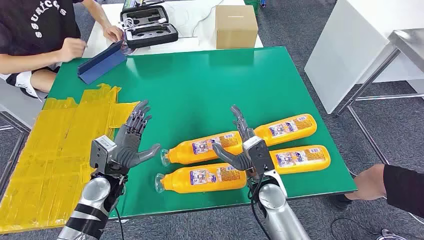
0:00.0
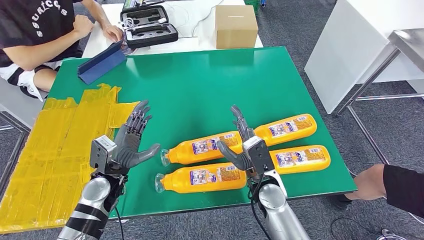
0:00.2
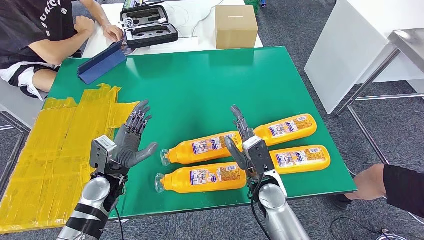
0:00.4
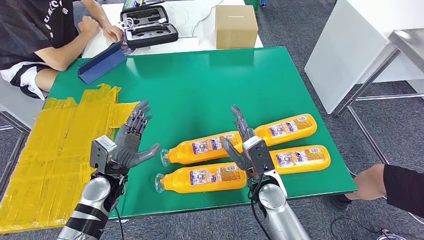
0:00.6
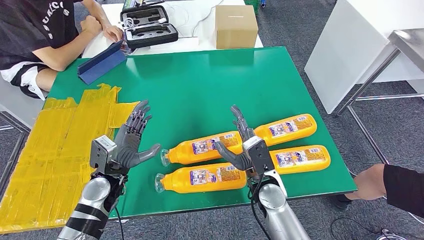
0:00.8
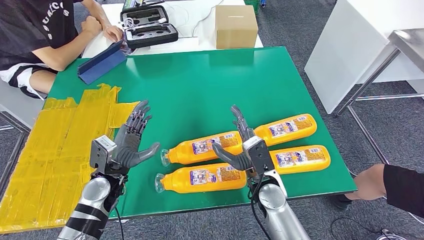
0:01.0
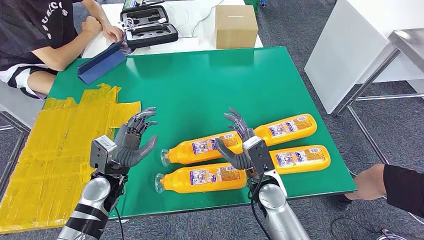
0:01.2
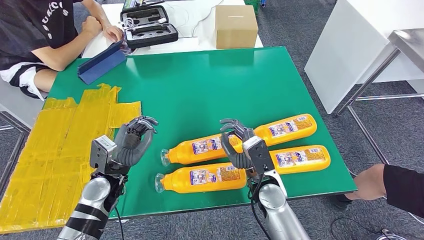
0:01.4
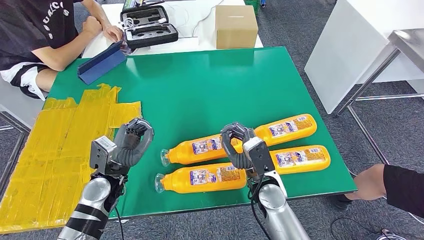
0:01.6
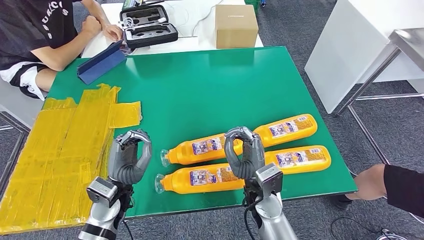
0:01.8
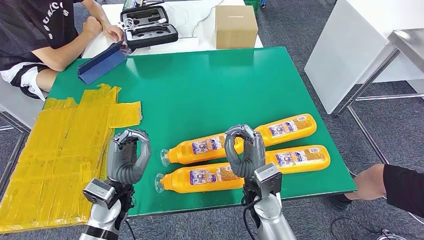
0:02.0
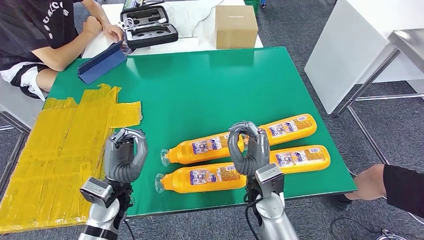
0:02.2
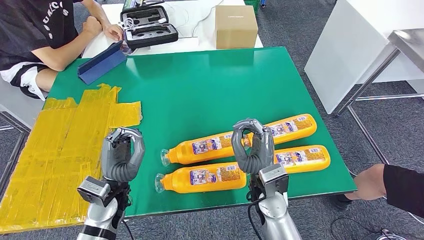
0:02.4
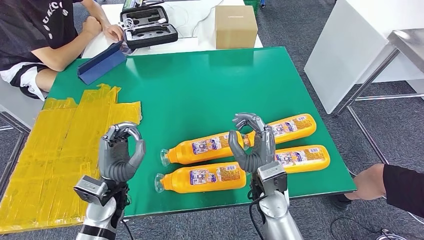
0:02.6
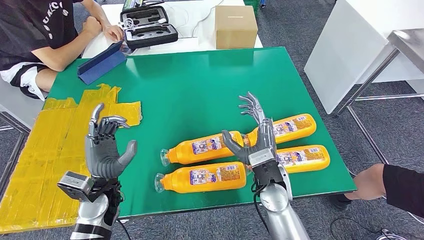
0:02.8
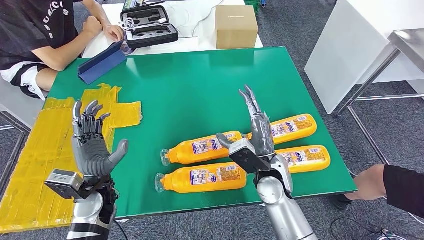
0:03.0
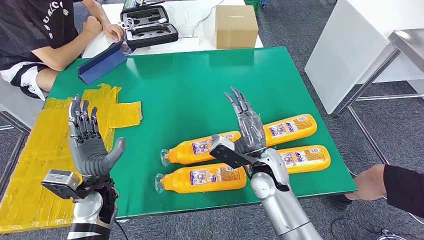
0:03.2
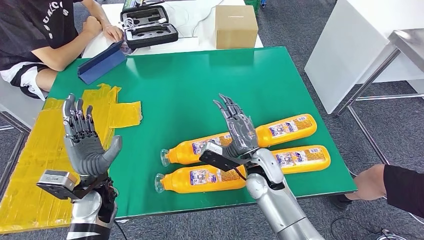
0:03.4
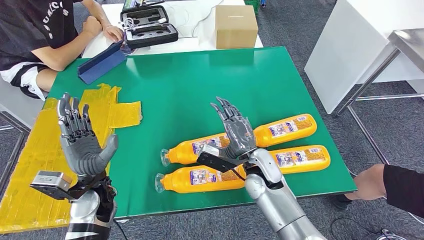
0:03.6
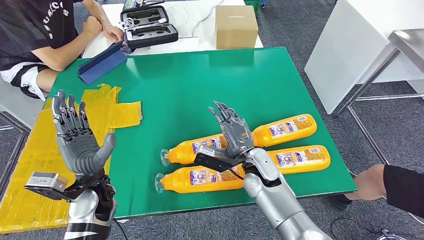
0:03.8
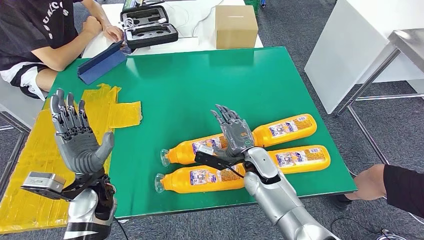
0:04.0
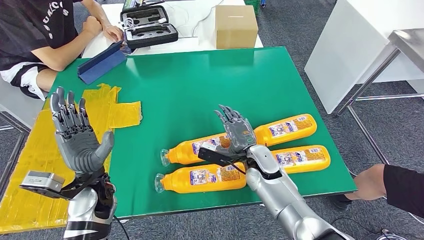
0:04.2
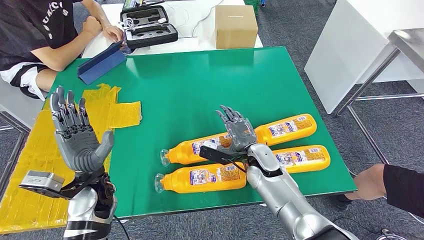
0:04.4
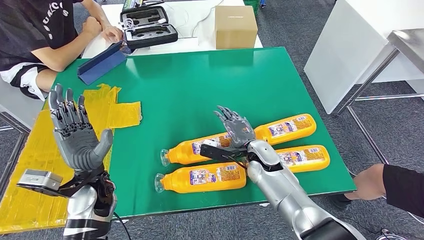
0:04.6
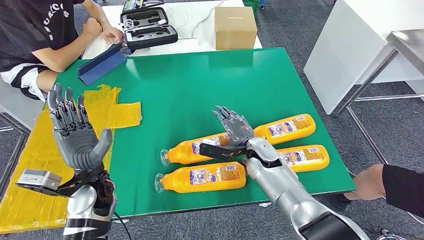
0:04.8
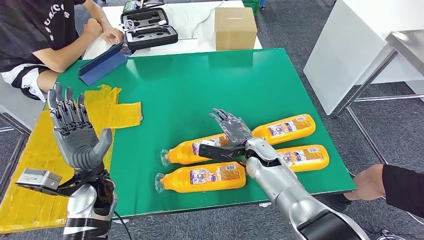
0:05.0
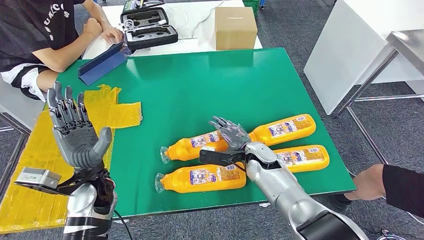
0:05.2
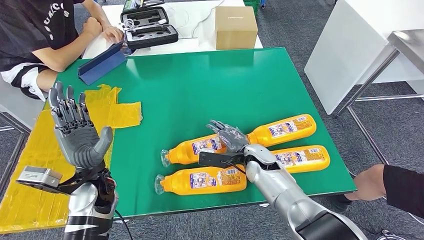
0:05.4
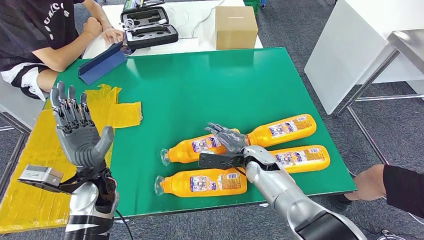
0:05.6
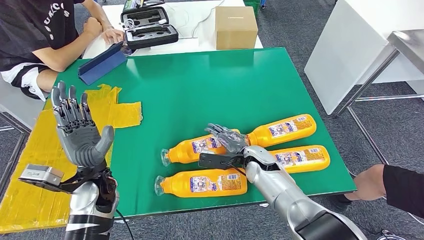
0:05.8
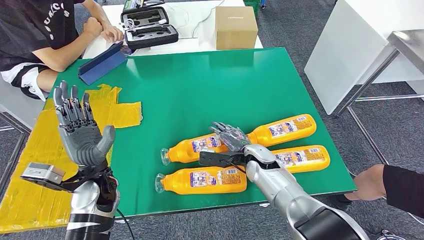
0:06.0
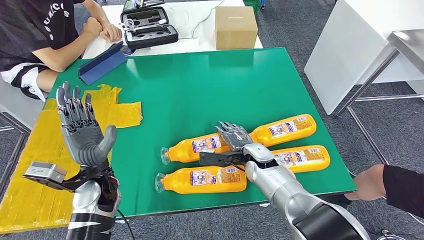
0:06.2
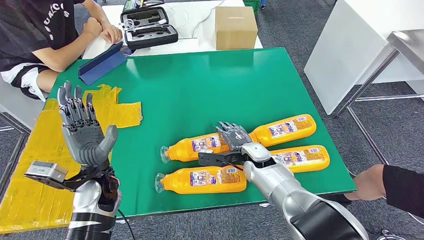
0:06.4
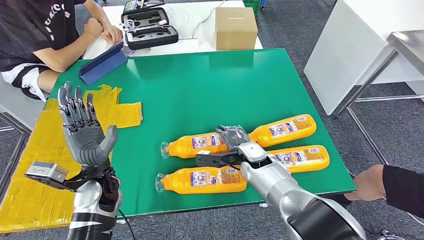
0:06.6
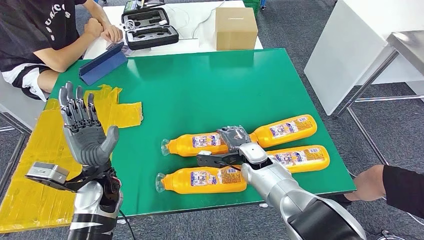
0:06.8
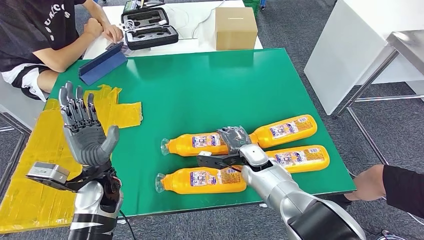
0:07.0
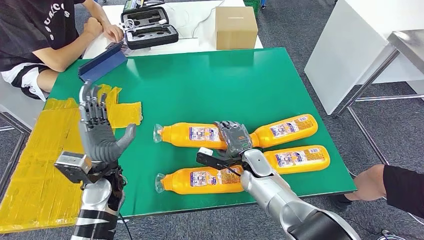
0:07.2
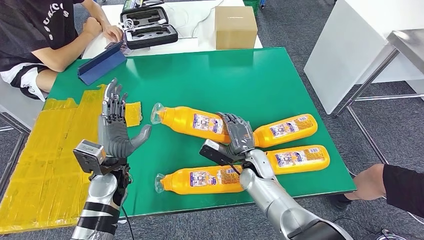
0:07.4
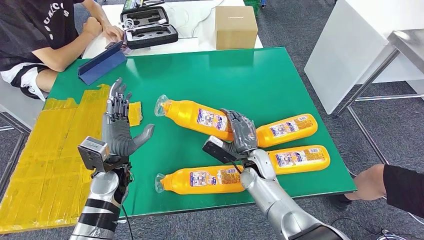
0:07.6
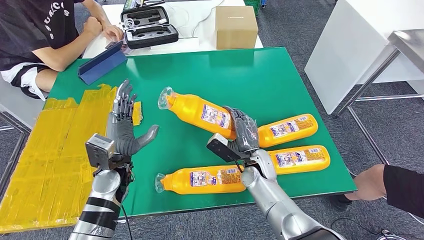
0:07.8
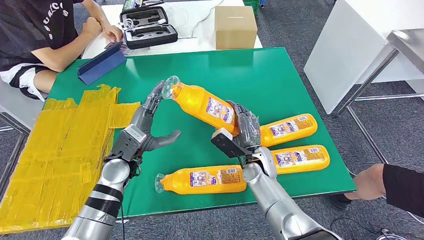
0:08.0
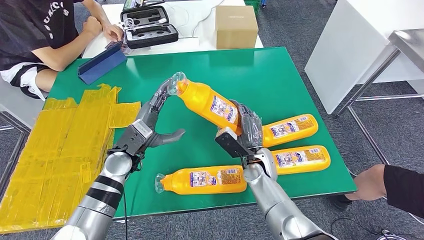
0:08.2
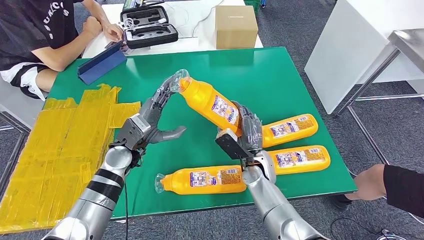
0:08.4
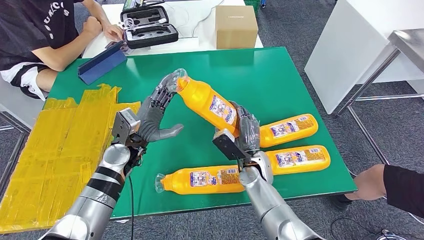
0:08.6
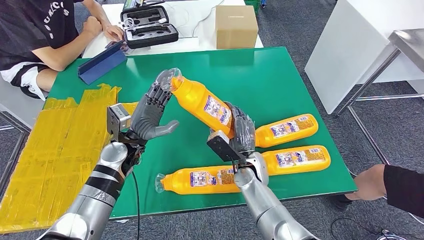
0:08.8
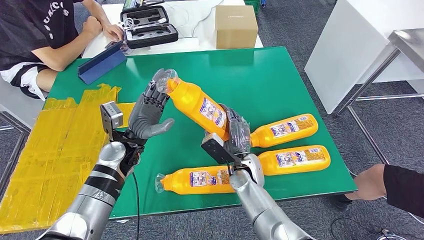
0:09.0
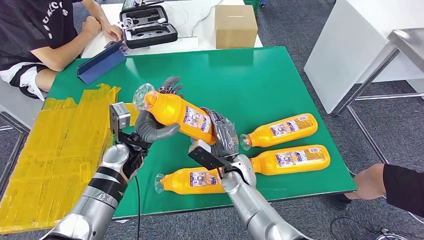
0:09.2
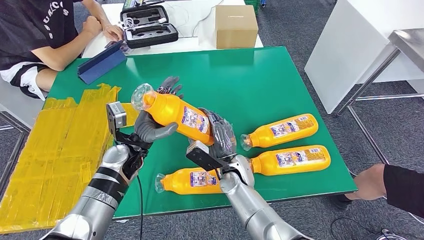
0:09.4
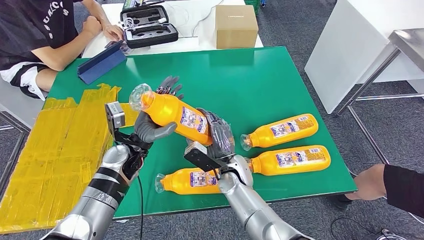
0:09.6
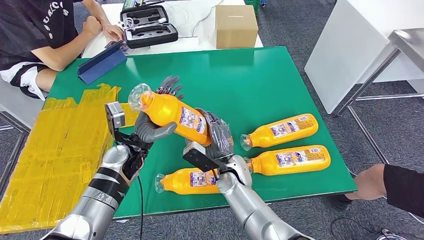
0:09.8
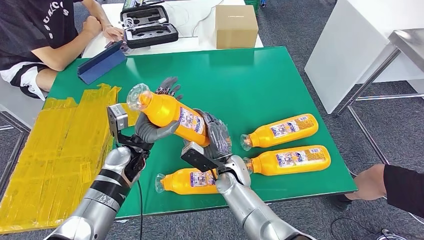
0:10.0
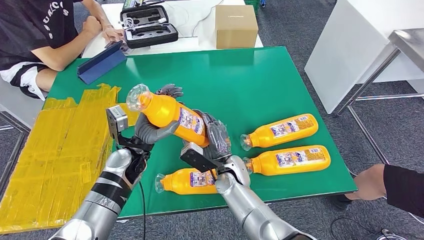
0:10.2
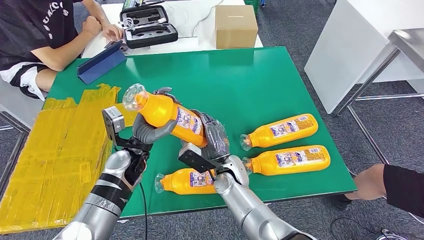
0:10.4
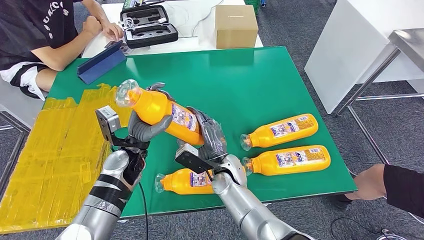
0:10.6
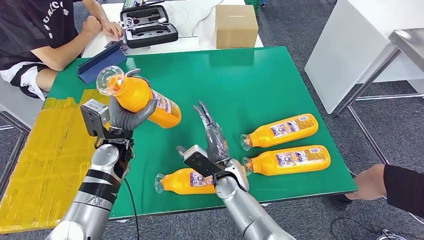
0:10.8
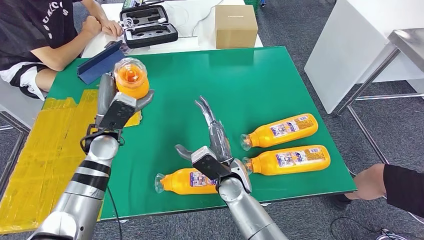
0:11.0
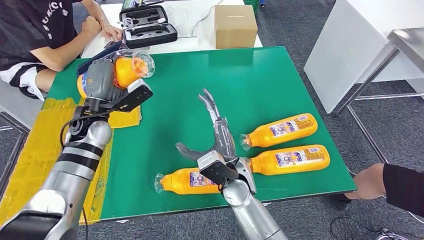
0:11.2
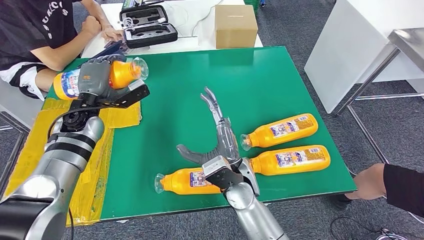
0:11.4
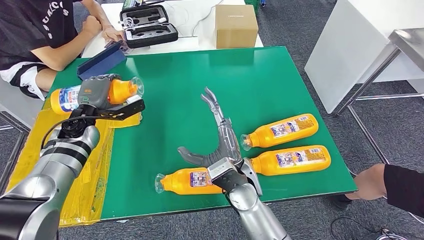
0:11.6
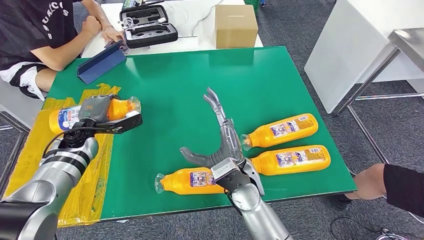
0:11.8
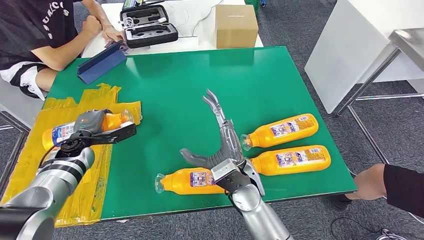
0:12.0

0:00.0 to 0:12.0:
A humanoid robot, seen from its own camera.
Step, 0:00.0 to 0:07.2: Take the fast-moving consumer goods bottle from the table.
0:03.0 to 0:04.4: The right hand moves forward and downward, some 10 cm.
0:07.6 to 0:09.0: The left hand travels forward by roughly 5 cm.
0:09.0 to 0:10.4: There are only small adjustments of the hands.
0:10.4 to 0:12.0: The right hand travels upward and backward by some 10 cm; the left hand goes roughly 20 cm to the left.

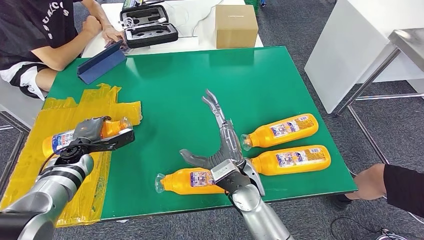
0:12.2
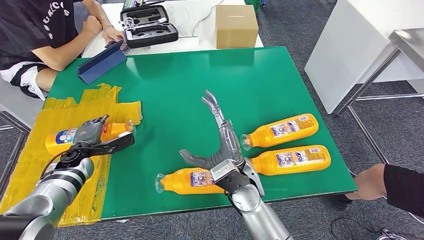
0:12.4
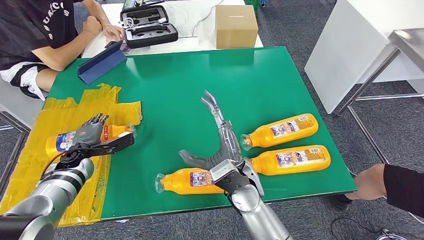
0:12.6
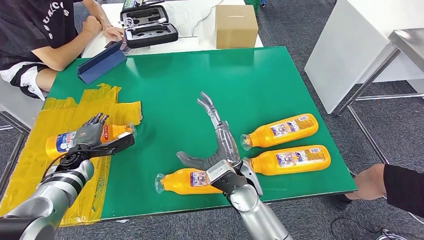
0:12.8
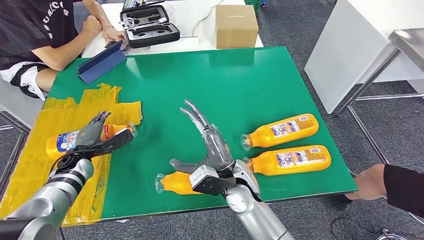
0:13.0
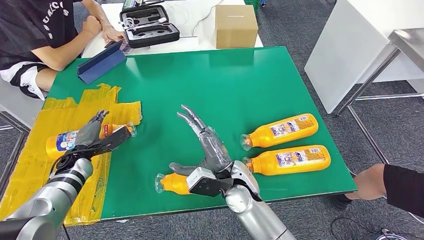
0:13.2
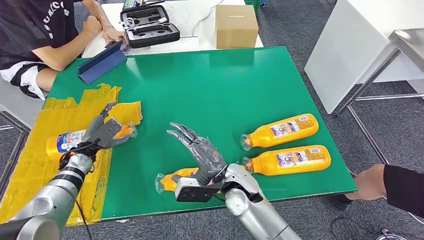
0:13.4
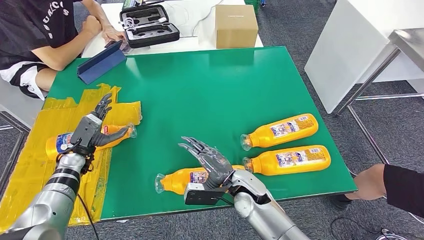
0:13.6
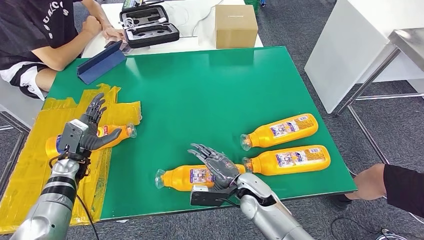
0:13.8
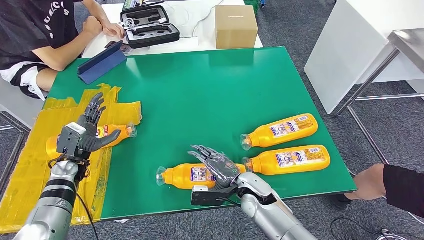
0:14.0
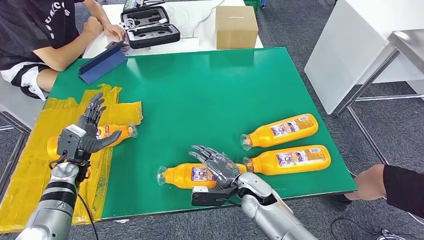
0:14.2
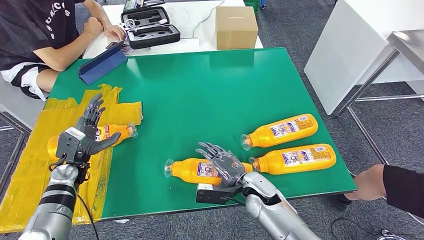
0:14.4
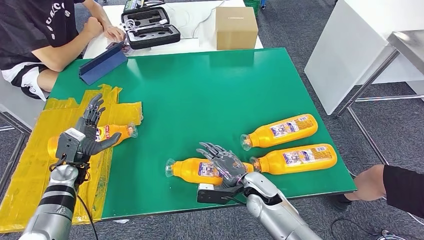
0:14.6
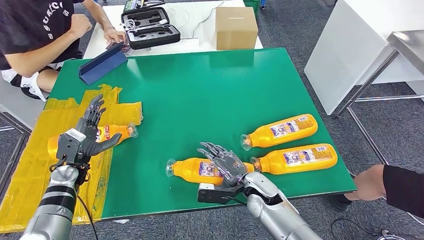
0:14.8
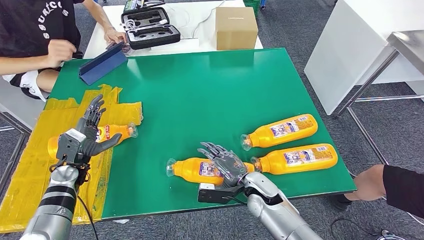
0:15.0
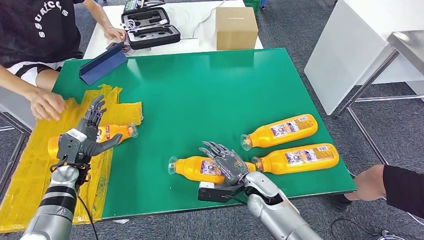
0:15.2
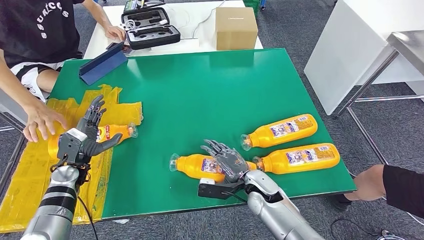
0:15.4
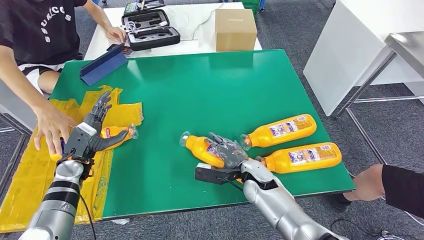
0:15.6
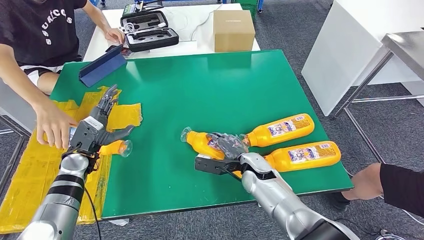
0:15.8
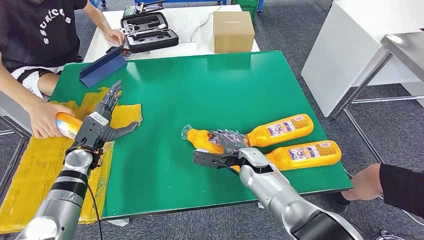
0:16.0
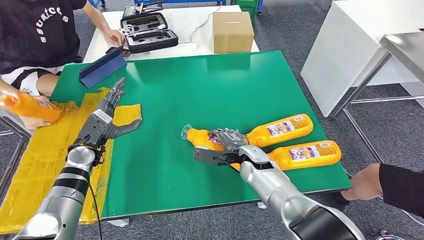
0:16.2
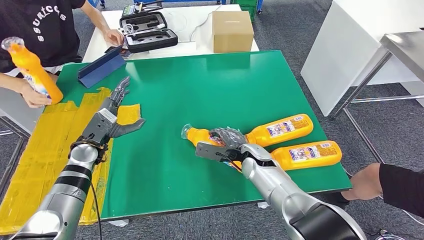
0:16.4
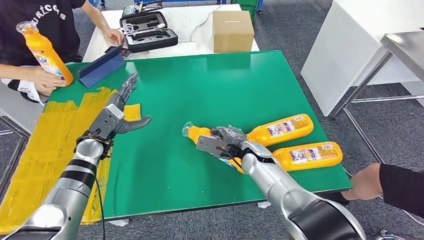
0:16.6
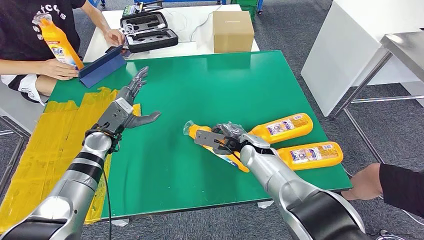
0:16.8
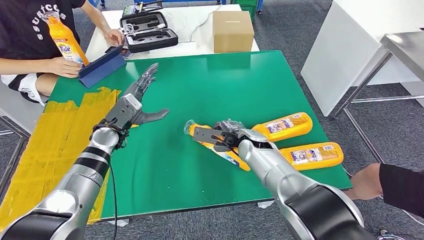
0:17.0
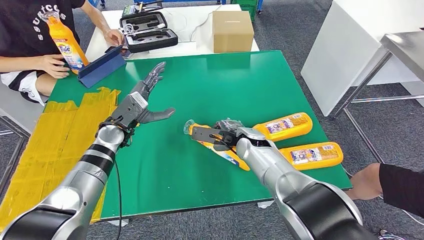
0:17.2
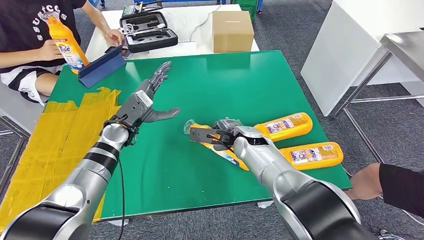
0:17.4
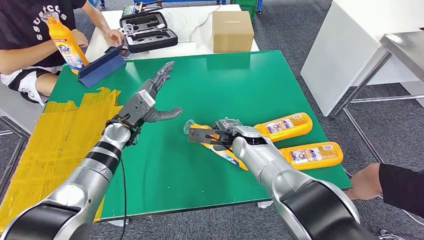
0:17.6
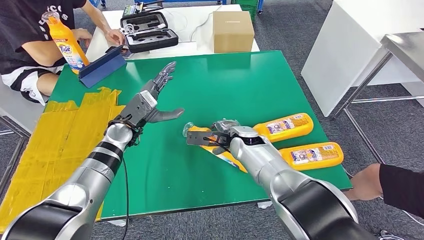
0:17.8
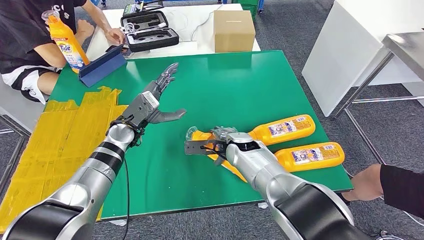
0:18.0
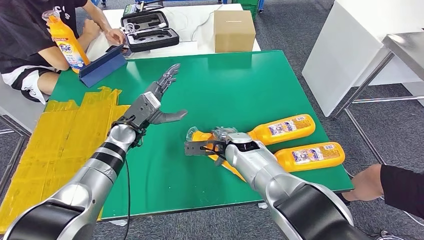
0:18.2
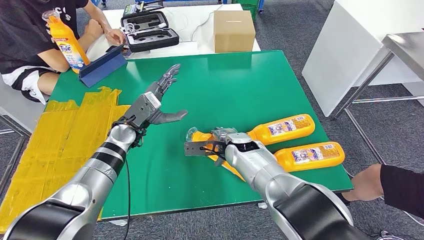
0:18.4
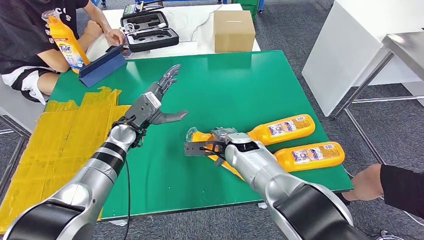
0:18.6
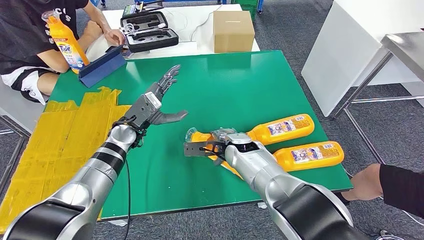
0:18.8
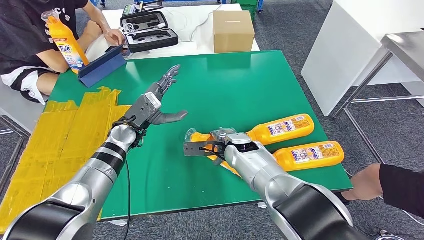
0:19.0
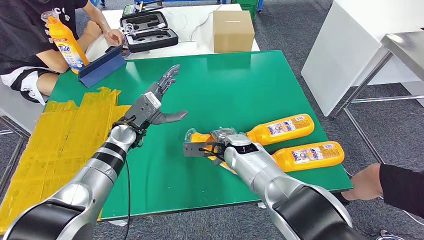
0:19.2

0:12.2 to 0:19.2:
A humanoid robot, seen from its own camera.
0:12.2 to 0:13.6: The right hand shifts approximately 5 cm downward.
0:17.8 to 0:19.2: The hands move only a little.
